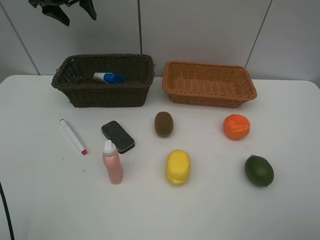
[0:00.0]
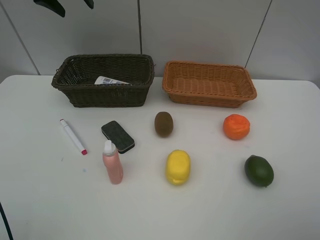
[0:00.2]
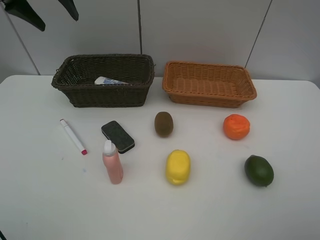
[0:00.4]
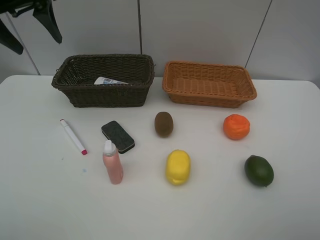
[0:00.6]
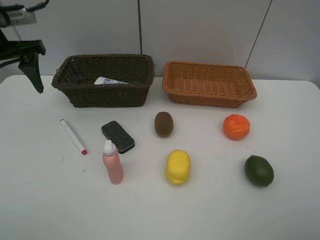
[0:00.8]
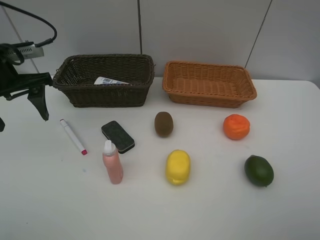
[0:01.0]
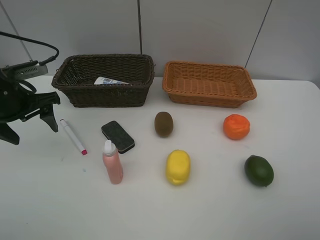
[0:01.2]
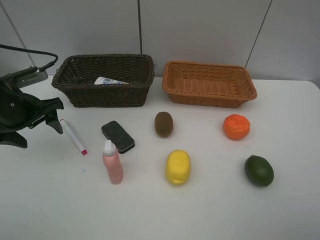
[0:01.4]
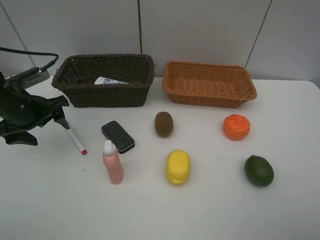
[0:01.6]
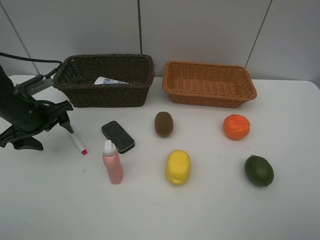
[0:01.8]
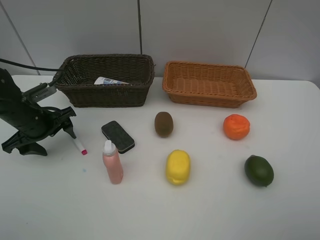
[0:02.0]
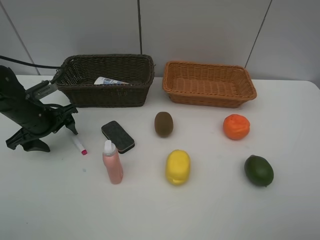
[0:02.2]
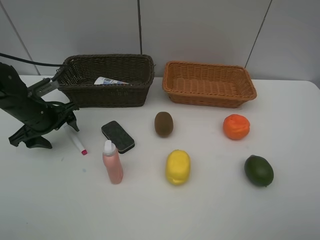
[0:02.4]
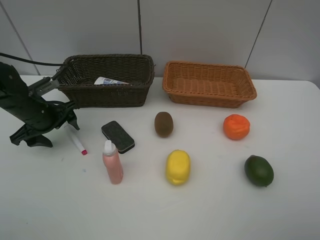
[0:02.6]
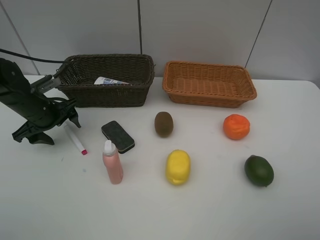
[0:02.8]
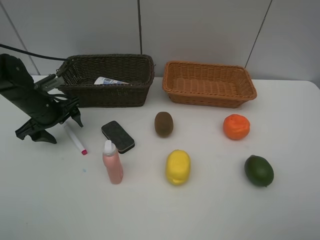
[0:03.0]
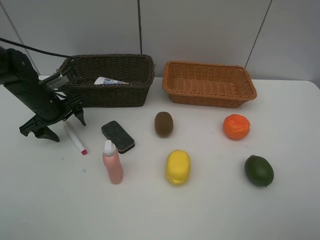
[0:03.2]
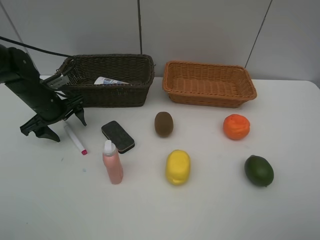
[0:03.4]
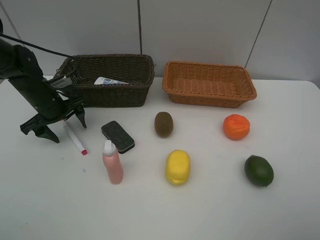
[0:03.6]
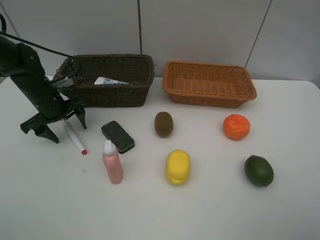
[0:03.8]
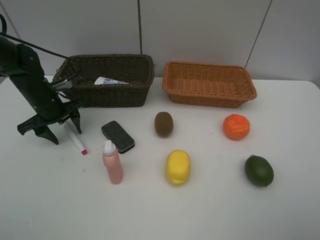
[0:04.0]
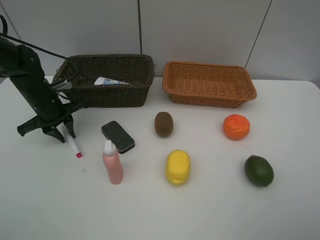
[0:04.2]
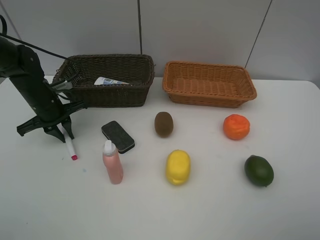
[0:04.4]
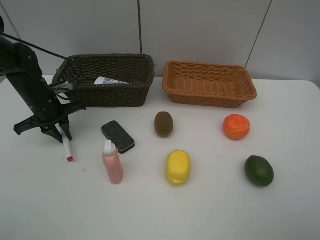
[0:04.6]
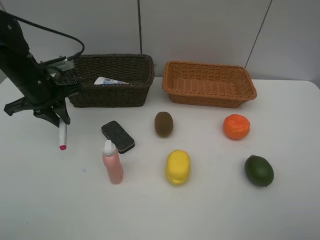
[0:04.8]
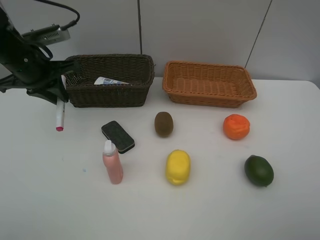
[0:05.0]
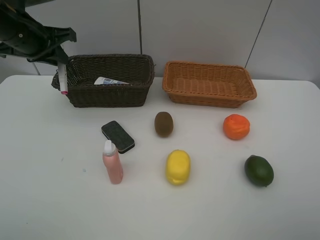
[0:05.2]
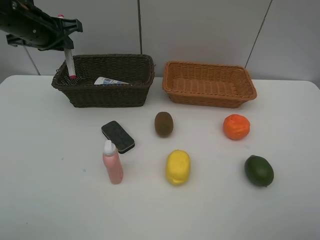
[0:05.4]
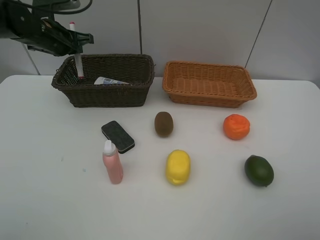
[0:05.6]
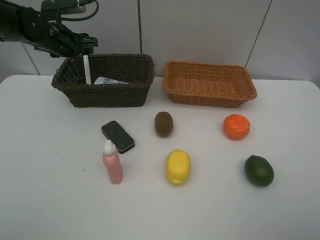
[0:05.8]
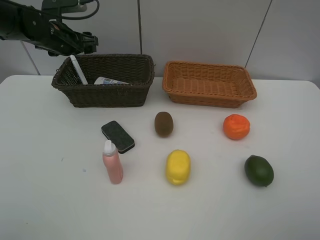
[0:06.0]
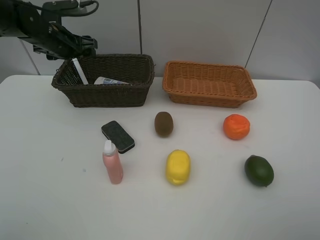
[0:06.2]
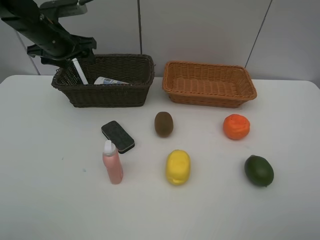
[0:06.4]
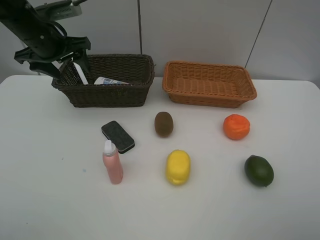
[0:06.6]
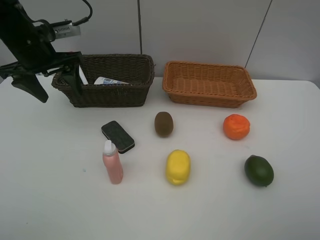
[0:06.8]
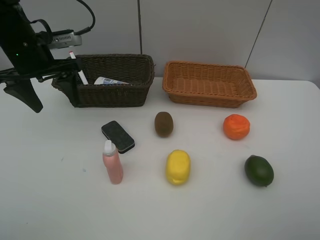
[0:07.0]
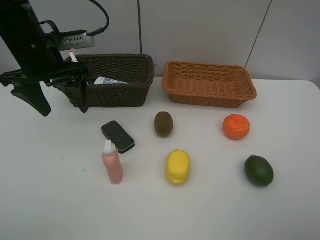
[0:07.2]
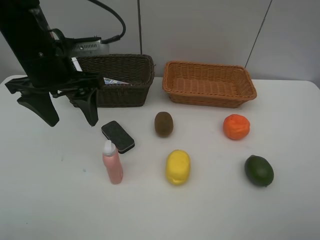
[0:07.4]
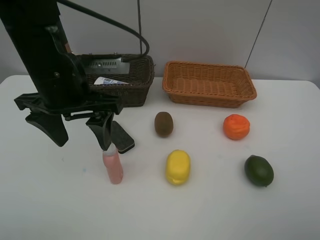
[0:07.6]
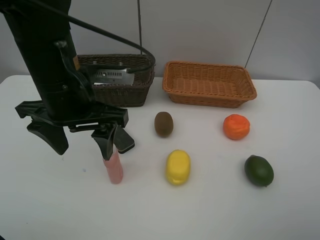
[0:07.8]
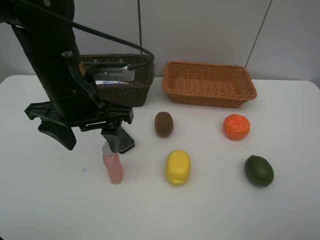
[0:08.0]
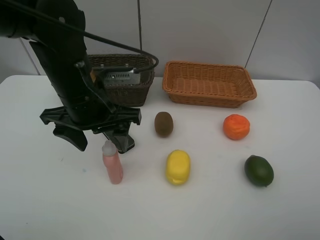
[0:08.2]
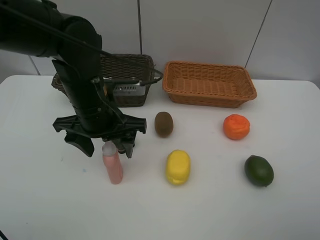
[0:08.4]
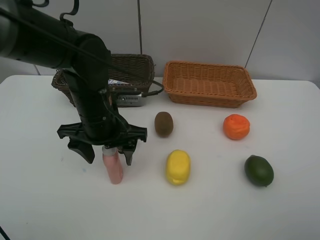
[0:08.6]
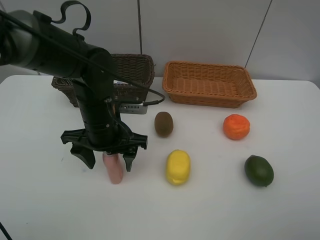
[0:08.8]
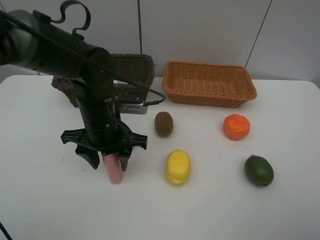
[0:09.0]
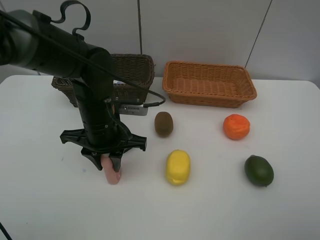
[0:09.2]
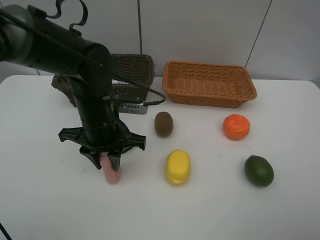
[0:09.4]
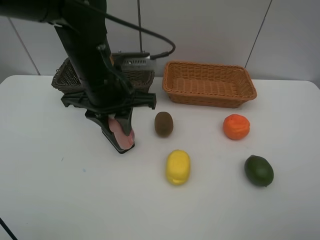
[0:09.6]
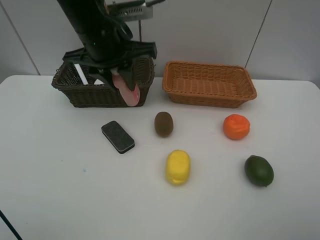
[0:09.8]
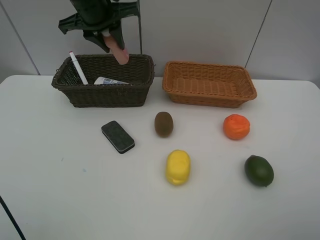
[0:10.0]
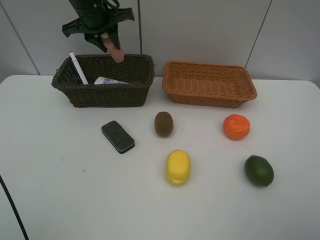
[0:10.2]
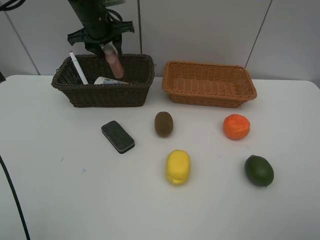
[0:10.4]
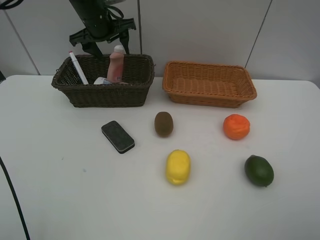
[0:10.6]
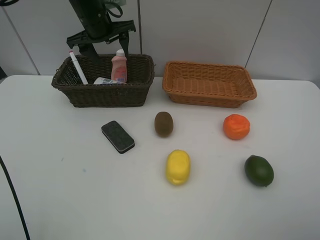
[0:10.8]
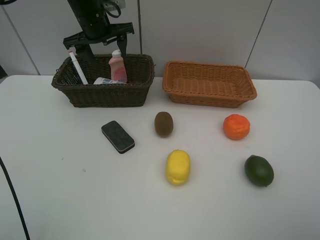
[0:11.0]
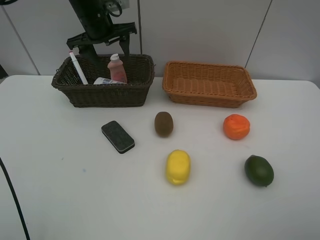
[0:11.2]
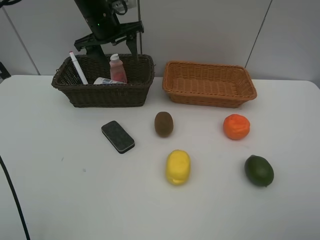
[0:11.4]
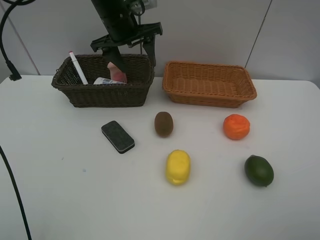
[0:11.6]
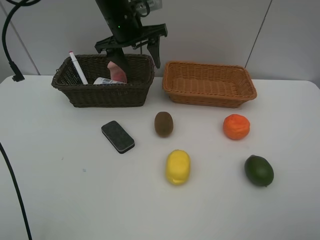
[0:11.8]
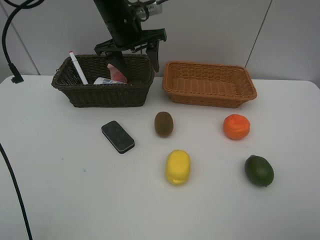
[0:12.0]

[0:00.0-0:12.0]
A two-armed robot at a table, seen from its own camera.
Task of the whole recording: Place multiple objects separately in different baskets.
Step, 0.0 to 4.6 s: Pick up the red marker with left gripper.
Step, 4.8 to 6.0 s: Place the red marker in the dark basket with left gripper.
Step, 6.2 to 9.4 s: Pick up the laundry detergent with left gripper.
Step, 9.6 to 10.6 s: Place the laundry detergent in the dark basket with left gripper.
0.0 to 1.6 s: The left gripper heads backward and downward, covering approximately 30 cm.
1.6 to 3.0 s: The left gripper moves forward, some 5 cm.
3.0 to 4.4 s: The left gripper closes its fingers.
4.4 to 6.0 s: The left gripper moves upward and forward, roughly 15 cm, and opens.
6.0 to 7.6 s: The left gripper heads backward and to the right, covering approximately 25 cm.
7.6 to 9.0 s: The left gripper heads downward, covering approximately 10 cm, and closes up.
9.0 to 10.4 s: The left gripper travels forward and upward by approximately 25 cm.
10.4 to 12.0 s: The left gripper goes approximately 10 cm to the right and backward.

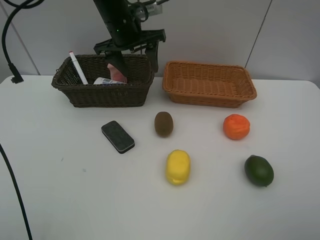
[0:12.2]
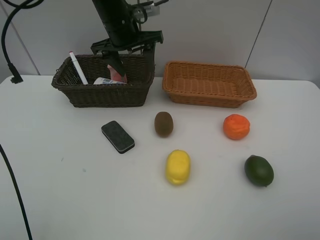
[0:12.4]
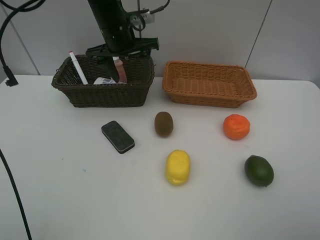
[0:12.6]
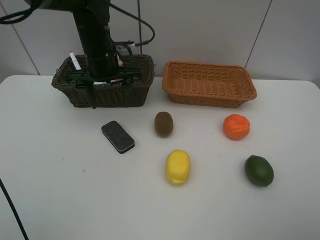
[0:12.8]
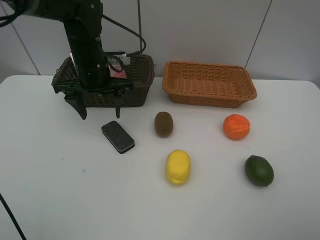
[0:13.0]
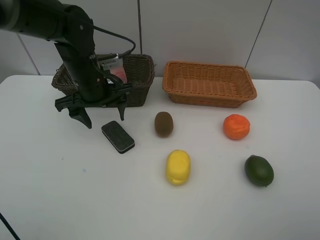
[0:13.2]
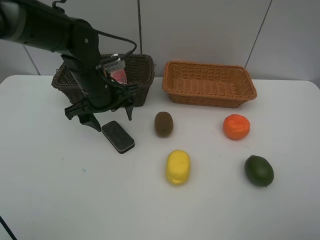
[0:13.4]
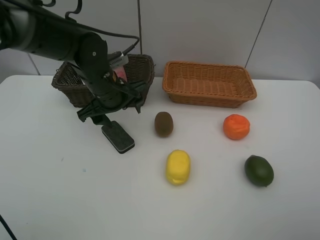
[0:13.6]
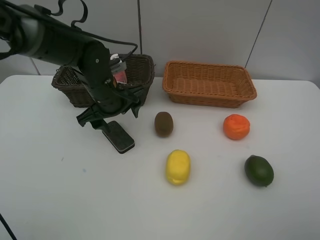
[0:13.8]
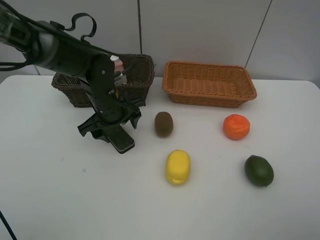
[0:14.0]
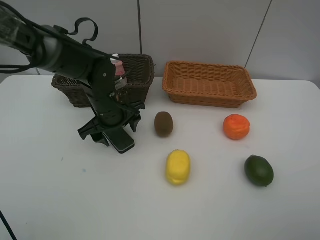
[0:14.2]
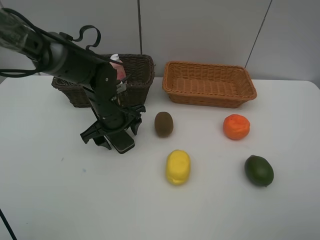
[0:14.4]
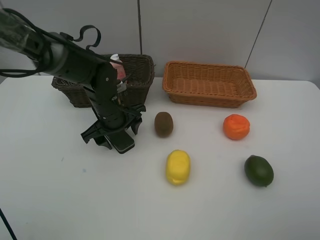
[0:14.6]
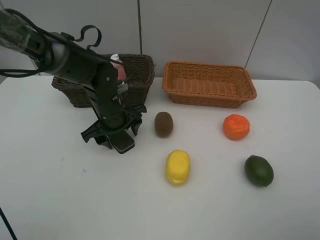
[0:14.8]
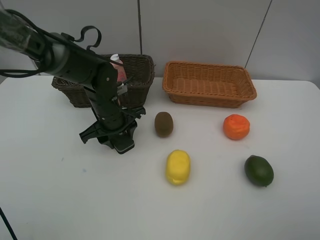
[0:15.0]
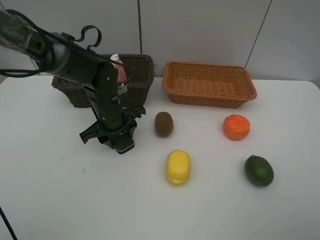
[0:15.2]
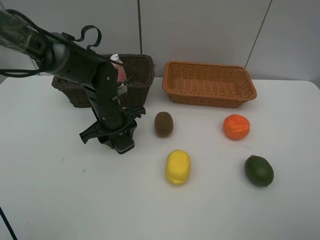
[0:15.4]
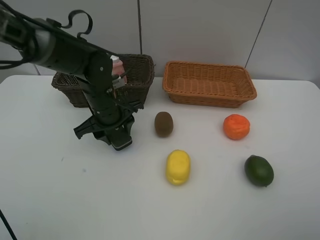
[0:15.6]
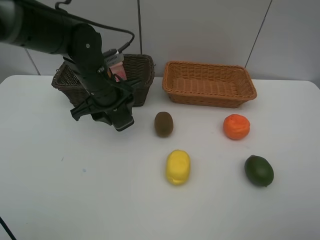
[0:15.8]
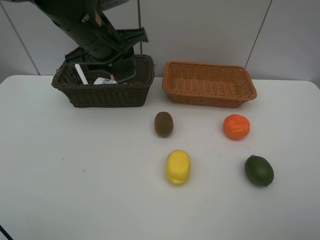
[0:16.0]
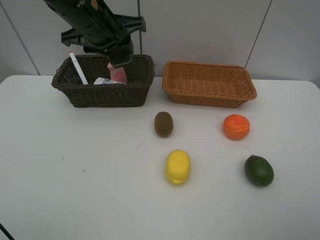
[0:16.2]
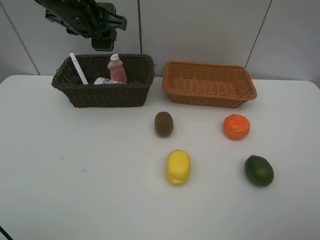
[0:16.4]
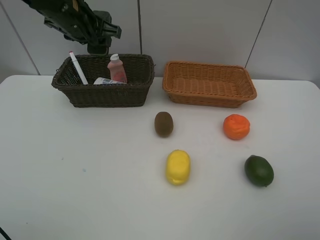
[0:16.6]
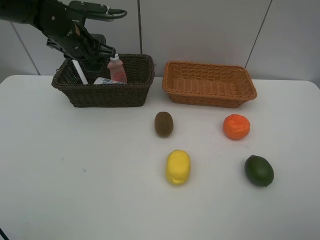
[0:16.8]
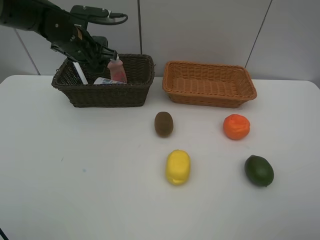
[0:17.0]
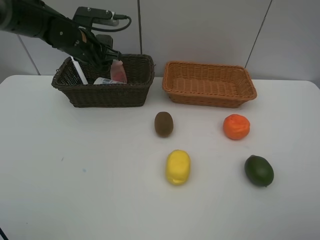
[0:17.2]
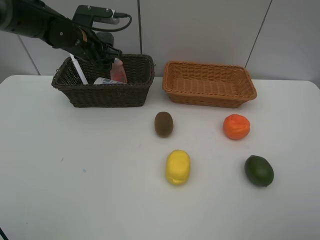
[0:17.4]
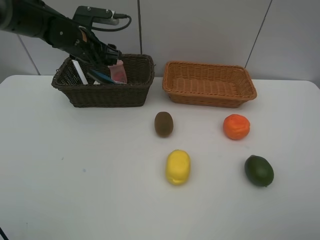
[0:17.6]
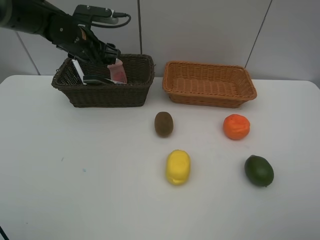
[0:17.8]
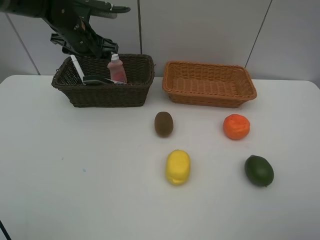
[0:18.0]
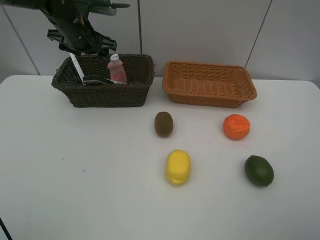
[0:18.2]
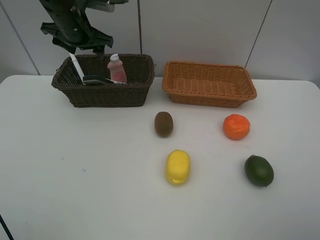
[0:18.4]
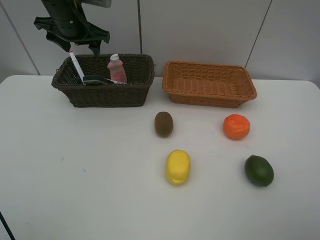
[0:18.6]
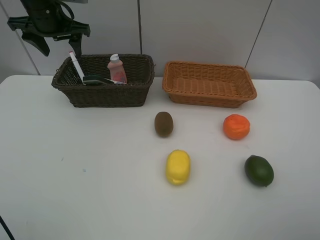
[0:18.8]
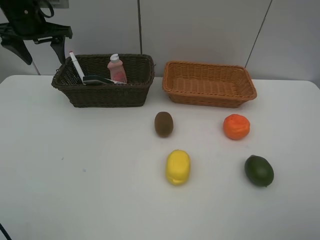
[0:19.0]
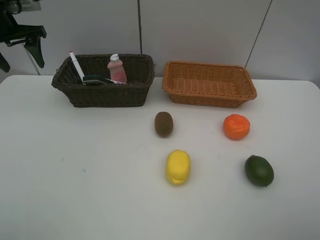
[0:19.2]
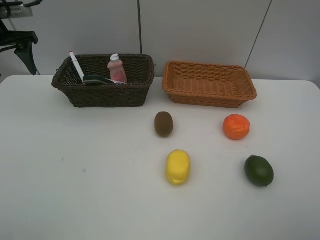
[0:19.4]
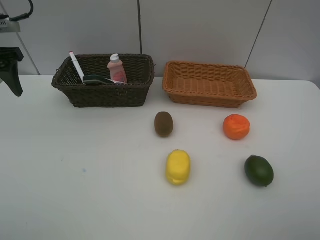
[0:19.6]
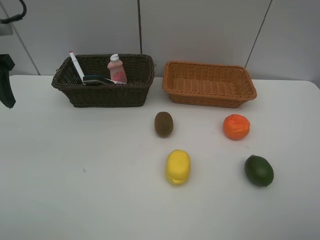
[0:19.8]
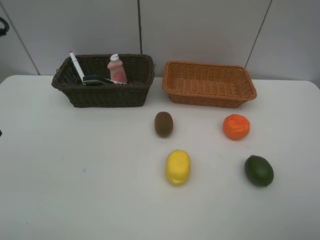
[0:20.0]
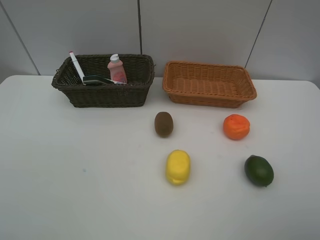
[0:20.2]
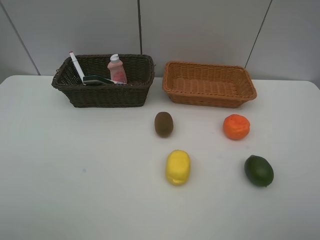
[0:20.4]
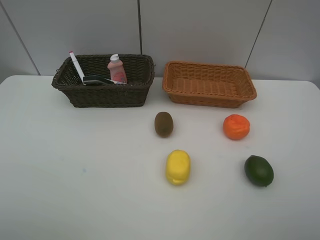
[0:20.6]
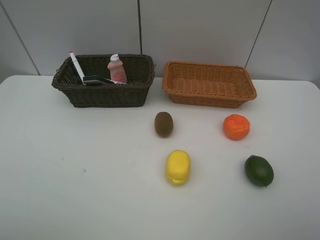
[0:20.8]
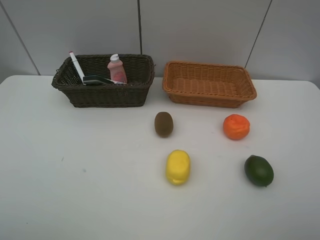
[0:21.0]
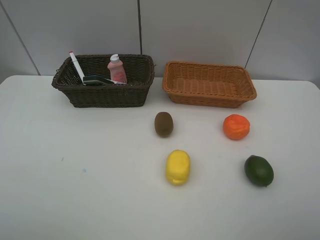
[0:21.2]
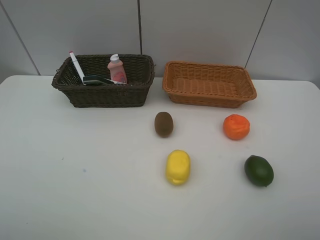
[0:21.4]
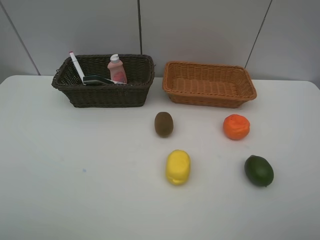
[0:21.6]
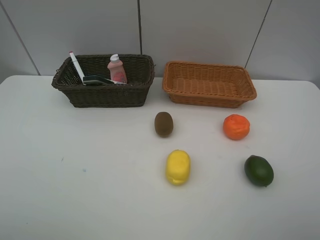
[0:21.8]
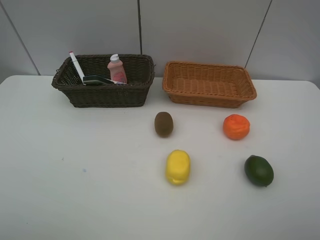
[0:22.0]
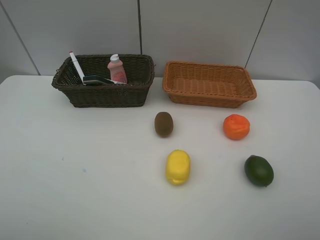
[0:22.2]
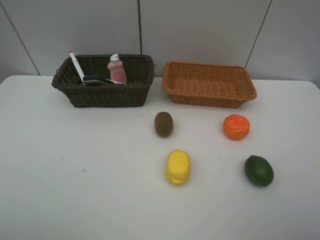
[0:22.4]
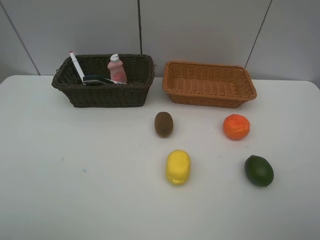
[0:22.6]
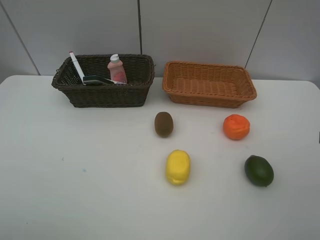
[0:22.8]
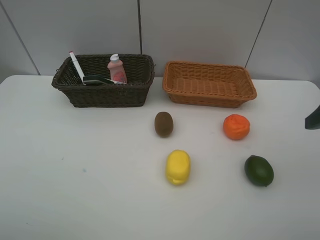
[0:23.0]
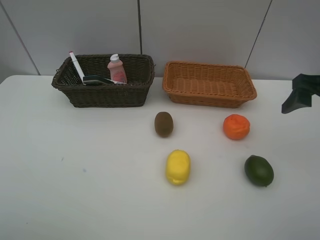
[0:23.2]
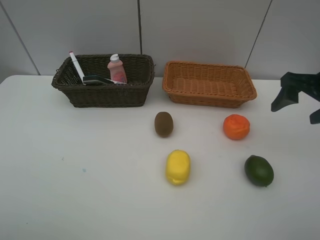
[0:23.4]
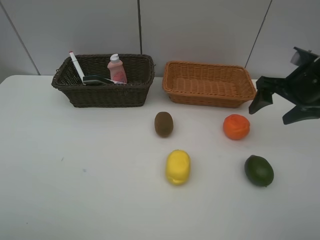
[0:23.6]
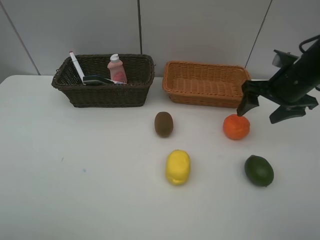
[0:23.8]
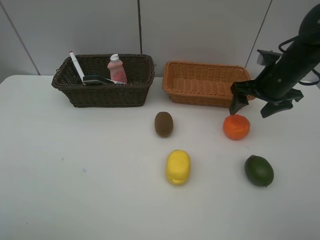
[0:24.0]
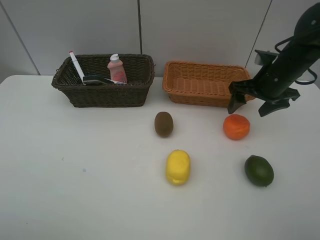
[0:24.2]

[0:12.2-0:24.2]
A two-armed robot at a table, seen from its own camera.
Task of the whole recording: Place multiple objects separately in different baskets.
Step, 12.2 to 15.6 s: Pick up blackboard eraser with left gripper.
Step, 15.8 to 17.8 s: Place the blackboard eraser in the dark basket with left gripper.
12.2 to 13.8 s: The left gripper heads downward and backward, covering roughly 15 cm.
13.8 to 15.2 s: The left gripper closes up.
15.2 to 16.6 s: The left gripper heads upward and forward, covering about 20 cm.
16.6 to 18.2 s: The left gripper shifts by some 5 cm, and opens up.
18.2 to 19.8 s: The left gripper travels backward and to the left by about 25 cm.
19.8 to 21.2 s: The left gripper moves backward, about 25 cm.
22.6 to 24.2 s: The right gripper goes approximately 30 cm forward.
